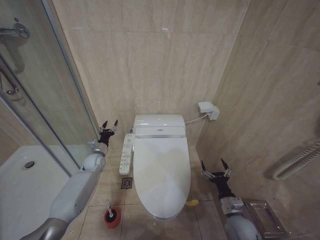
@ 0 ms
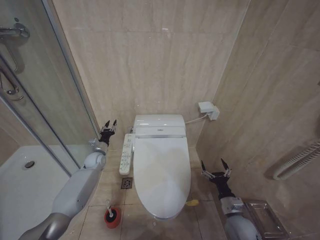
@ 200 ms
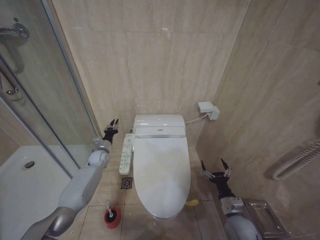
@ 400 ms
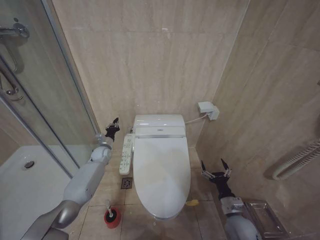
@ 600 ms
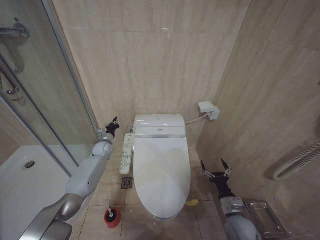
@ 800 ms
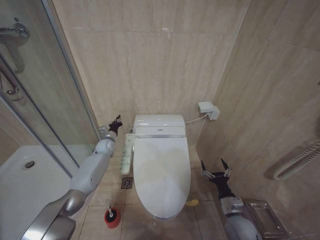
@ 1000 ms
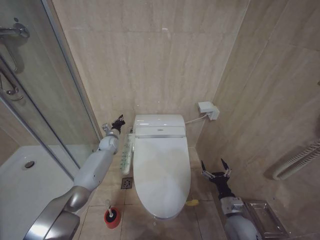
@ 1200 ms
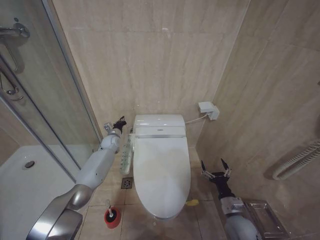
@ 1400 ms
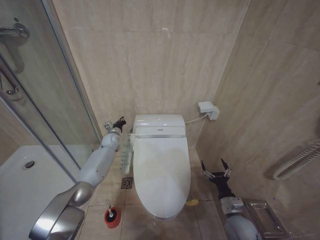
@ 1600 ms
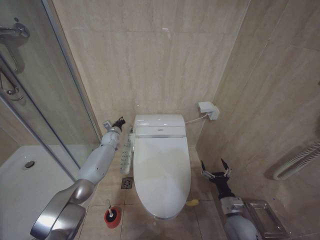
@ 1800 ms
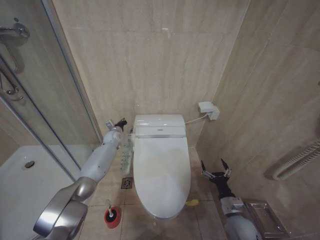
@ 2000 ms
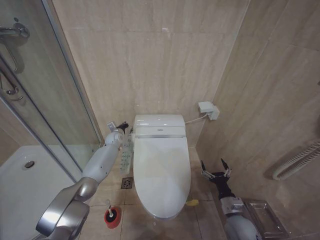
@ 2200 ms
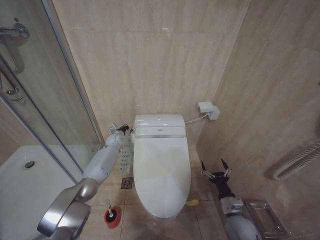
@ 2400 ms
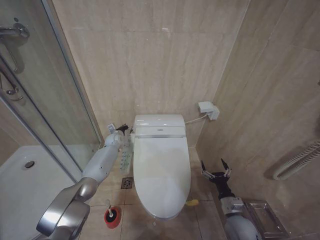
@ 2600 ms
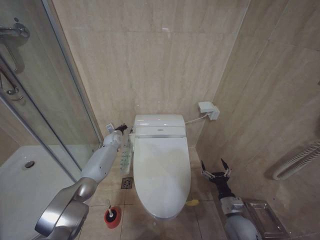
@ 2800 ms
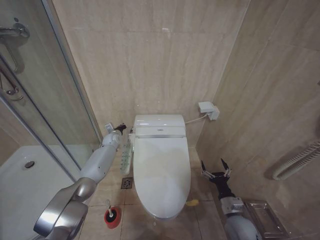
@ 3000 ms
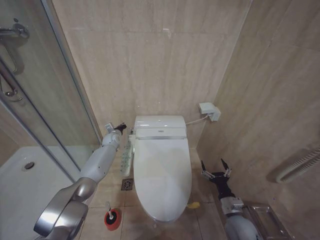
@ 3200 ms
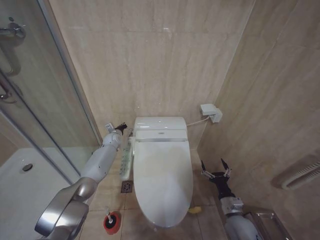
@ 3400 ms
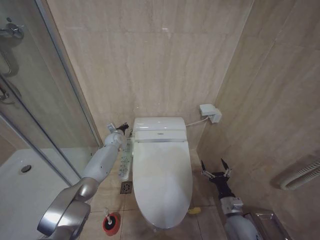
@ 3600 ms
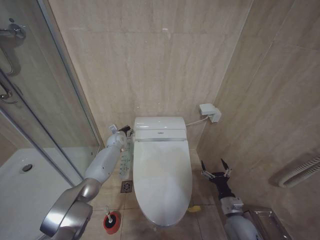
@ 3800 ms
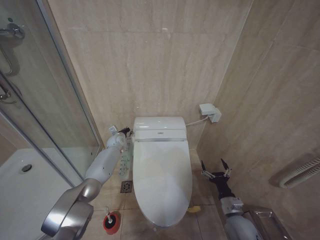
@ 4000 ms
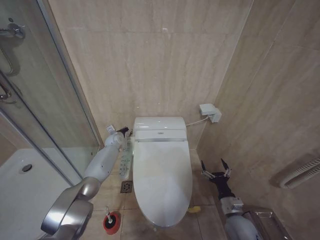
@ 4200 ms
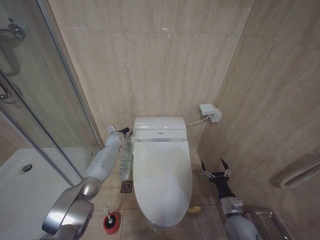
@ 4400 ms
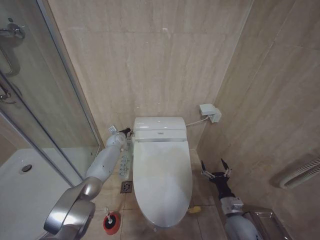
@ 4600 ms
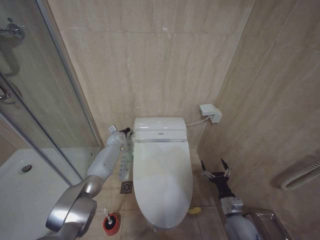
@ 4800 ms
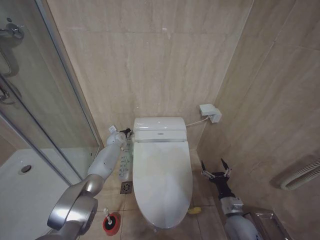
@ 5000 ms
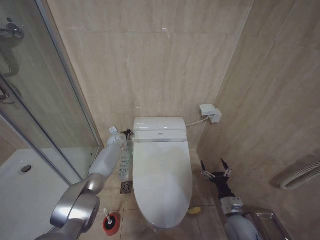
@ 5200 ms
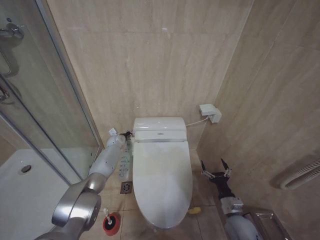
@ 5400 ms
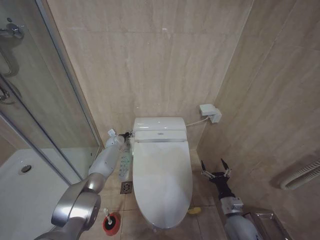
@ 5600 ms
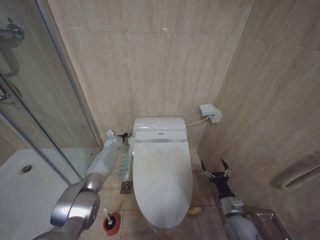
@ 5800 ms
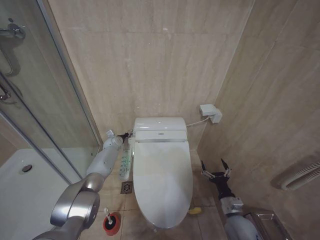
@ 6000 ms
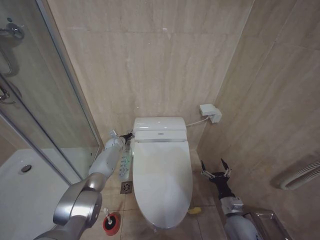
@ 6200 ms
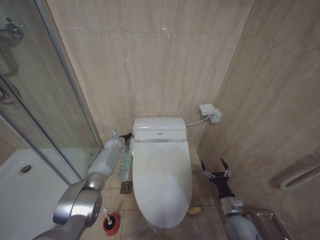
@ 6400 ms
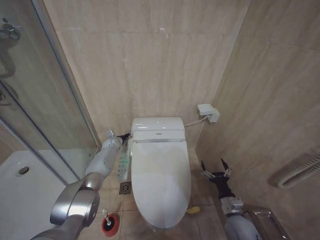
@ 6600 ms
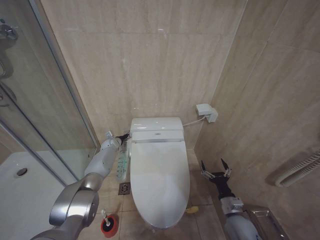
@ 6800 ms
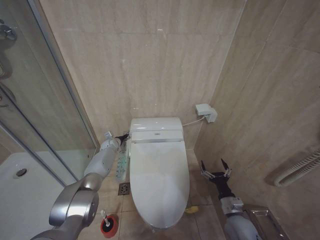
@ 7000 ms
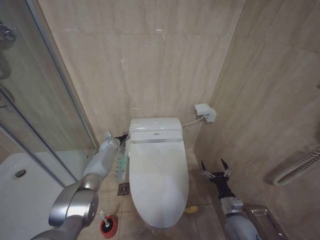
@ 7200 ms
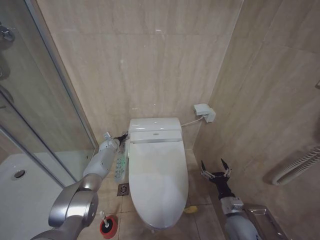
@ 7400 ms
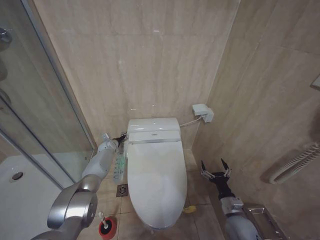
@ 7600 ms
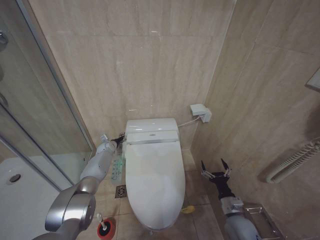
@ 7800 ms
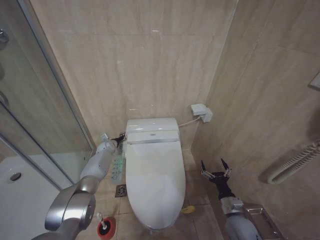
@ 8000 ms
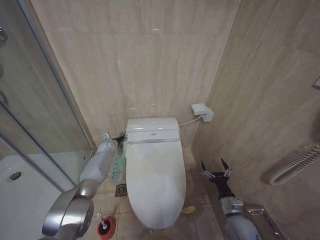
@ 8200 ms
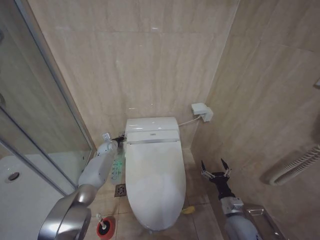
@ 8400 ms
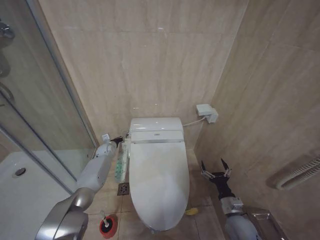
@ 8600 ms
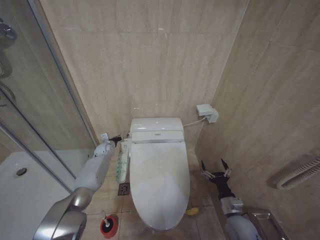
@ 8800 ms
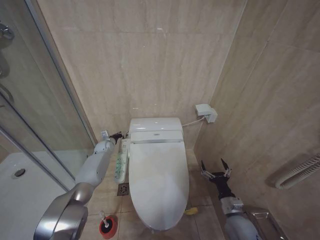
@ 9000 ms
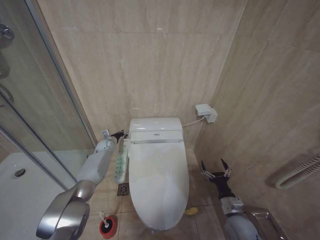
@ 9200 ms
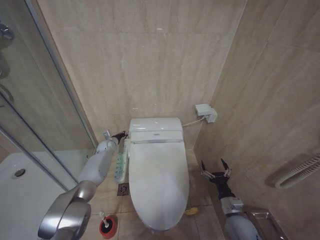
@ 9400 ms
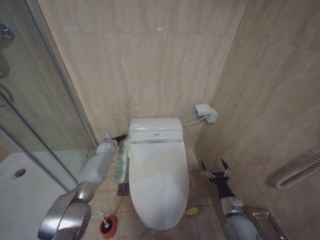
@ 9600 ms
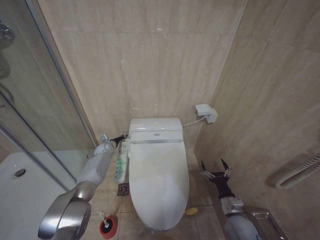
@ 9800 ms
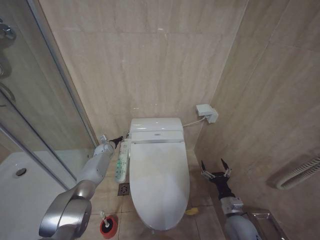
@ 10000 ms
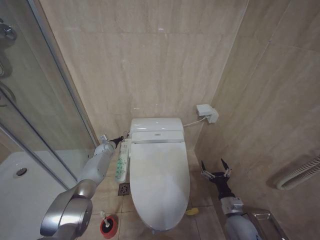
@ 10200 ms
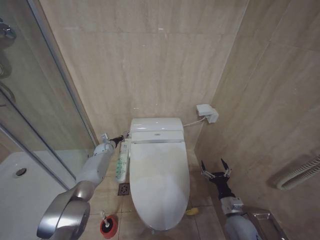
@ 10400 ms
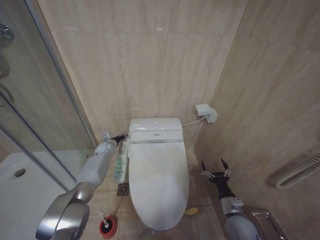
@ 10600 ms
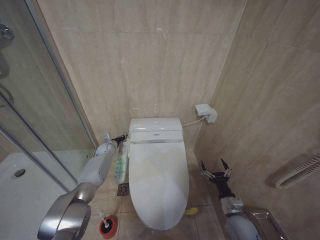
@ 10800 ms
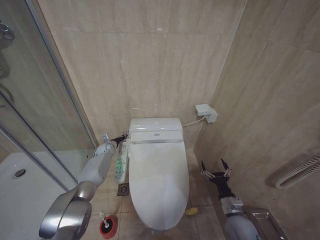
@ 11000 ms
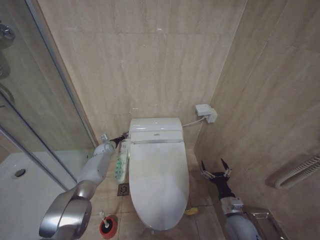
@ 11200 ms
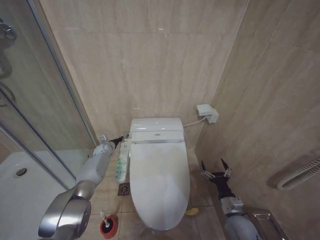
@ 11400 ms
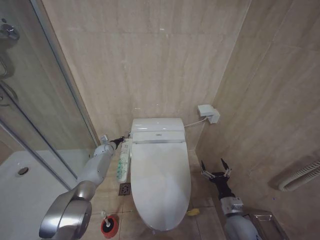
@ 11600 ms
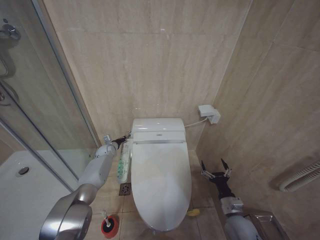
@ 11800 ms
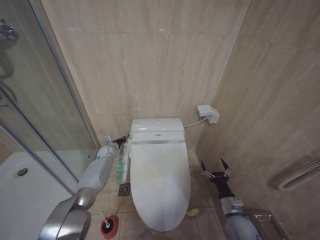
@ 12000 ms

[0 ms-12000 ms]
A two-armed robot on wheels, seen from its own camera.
Task of the whole recording: Open the toilet lid, clean the toilet bowl with a toilet brush, close the toilet lid, and flush.
0 ms to 1600 ms: The left gripper is displaced forward, to the right and upward by approximately 15 cm, and closes its fingers.
1600 ms to 4400 ms: There are only small adjustments of the grippers.
4400 ms to 6000 ms: The grippers stay close to where they were, moving slightly.
6000 ms to 12000 ms: The grippers move only a little.

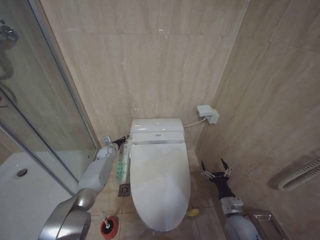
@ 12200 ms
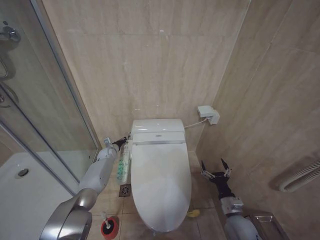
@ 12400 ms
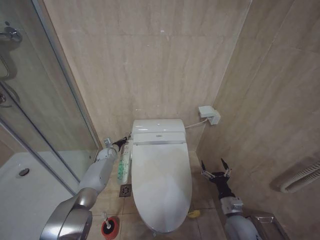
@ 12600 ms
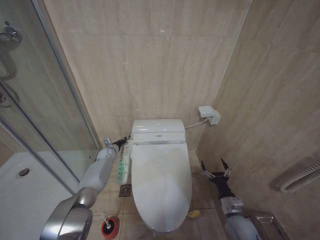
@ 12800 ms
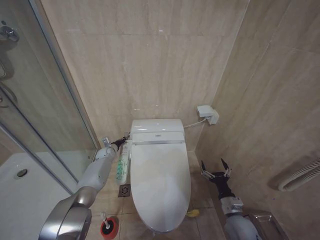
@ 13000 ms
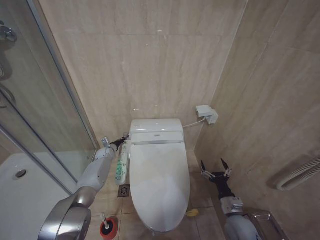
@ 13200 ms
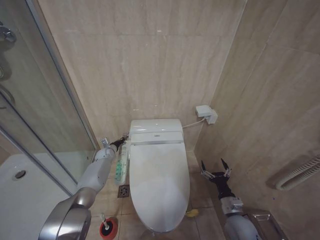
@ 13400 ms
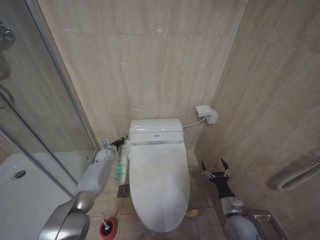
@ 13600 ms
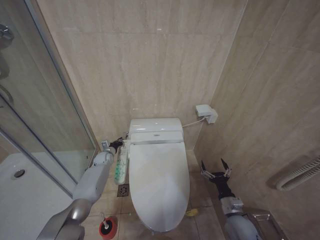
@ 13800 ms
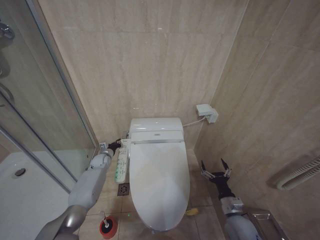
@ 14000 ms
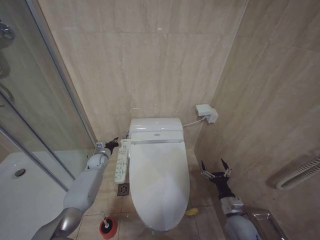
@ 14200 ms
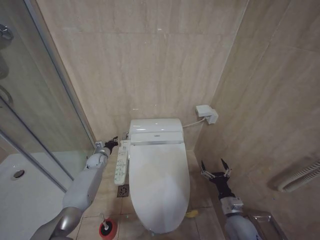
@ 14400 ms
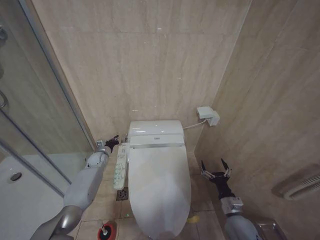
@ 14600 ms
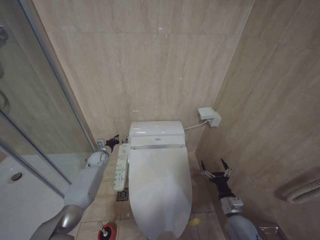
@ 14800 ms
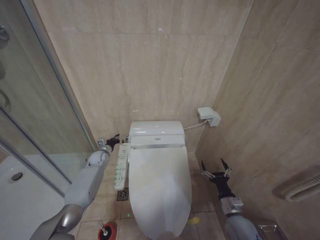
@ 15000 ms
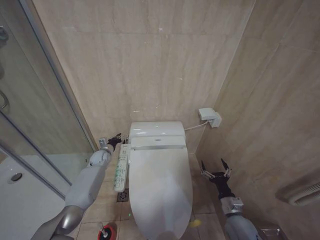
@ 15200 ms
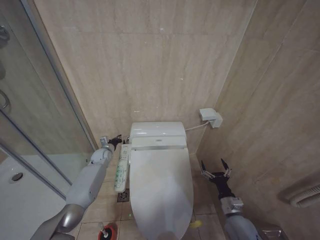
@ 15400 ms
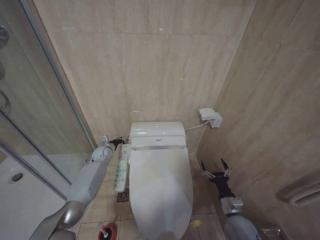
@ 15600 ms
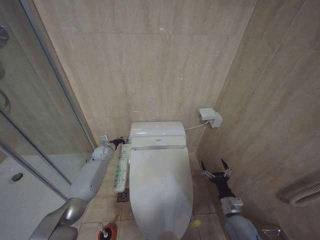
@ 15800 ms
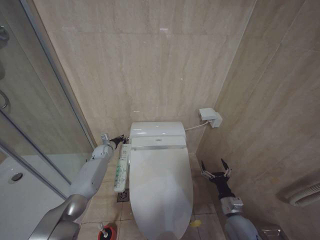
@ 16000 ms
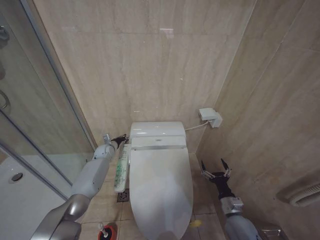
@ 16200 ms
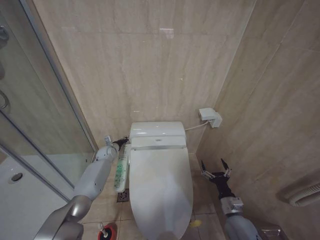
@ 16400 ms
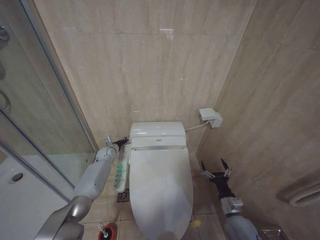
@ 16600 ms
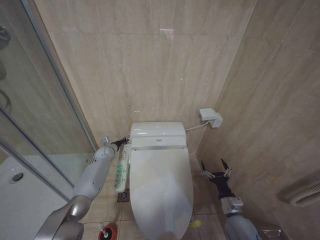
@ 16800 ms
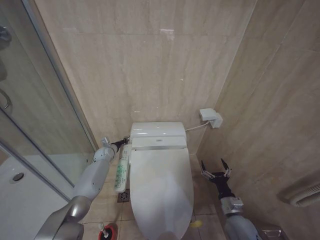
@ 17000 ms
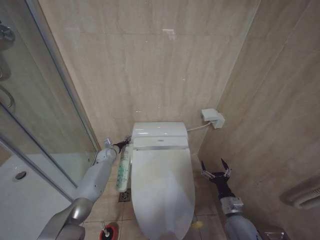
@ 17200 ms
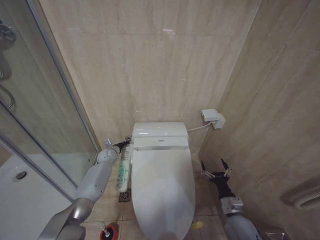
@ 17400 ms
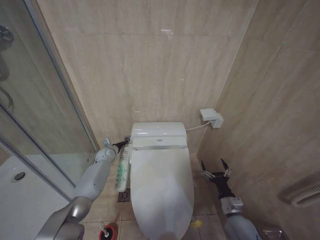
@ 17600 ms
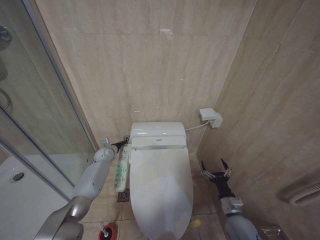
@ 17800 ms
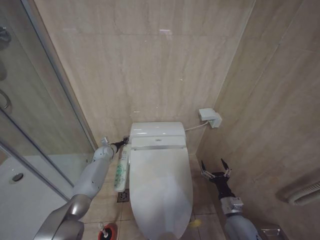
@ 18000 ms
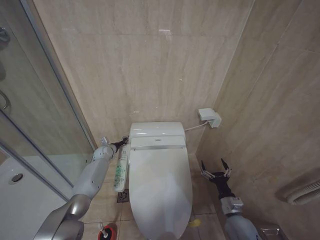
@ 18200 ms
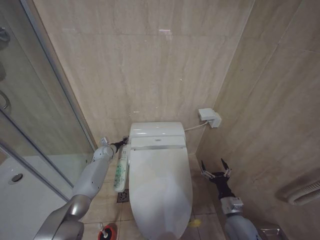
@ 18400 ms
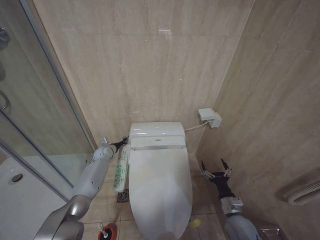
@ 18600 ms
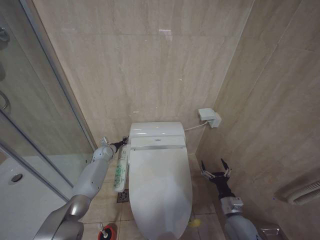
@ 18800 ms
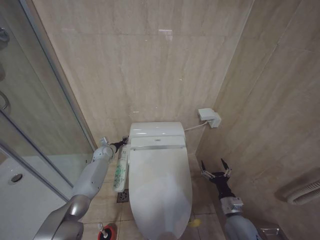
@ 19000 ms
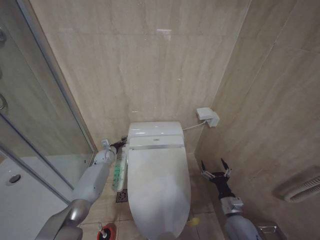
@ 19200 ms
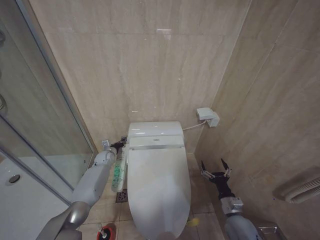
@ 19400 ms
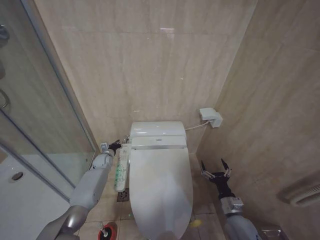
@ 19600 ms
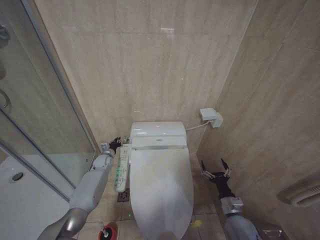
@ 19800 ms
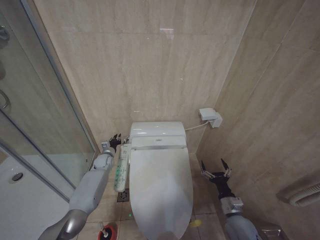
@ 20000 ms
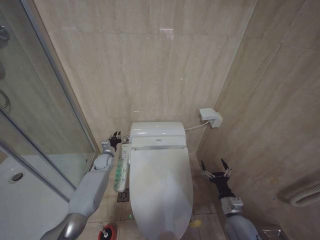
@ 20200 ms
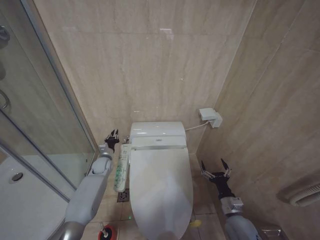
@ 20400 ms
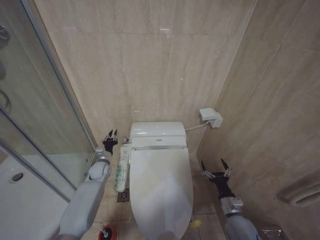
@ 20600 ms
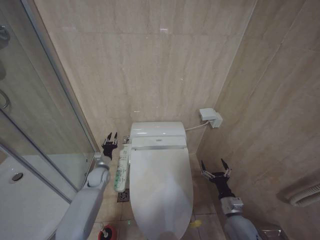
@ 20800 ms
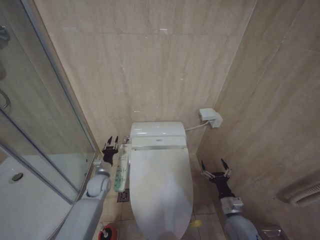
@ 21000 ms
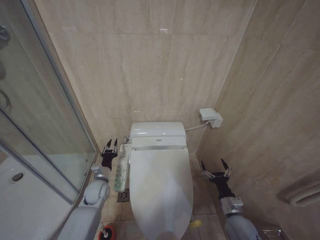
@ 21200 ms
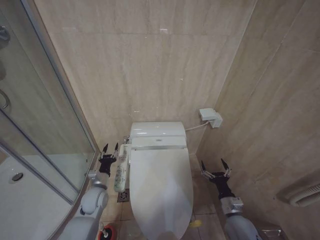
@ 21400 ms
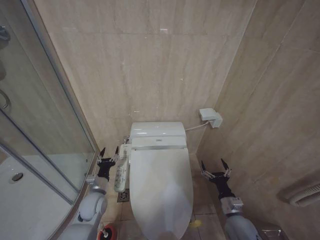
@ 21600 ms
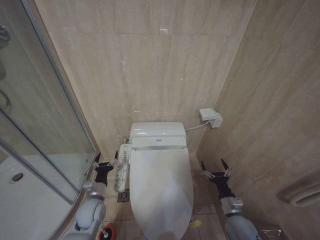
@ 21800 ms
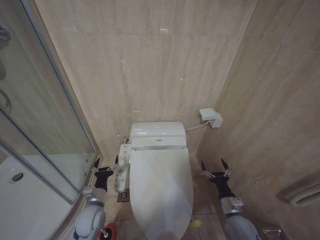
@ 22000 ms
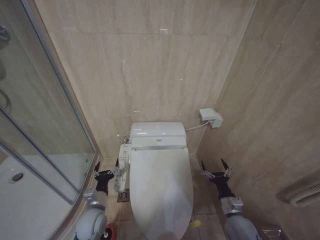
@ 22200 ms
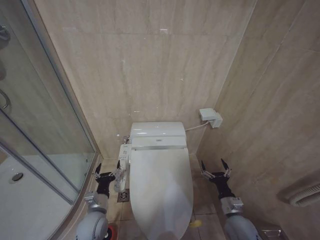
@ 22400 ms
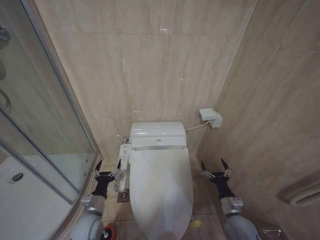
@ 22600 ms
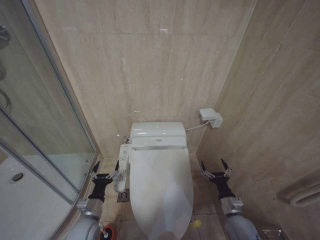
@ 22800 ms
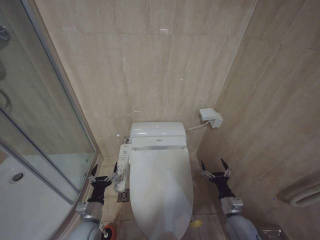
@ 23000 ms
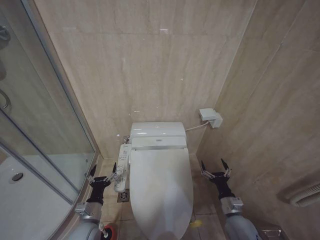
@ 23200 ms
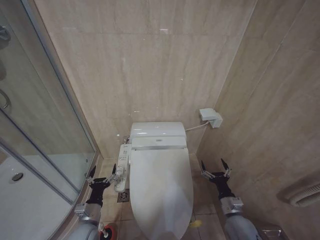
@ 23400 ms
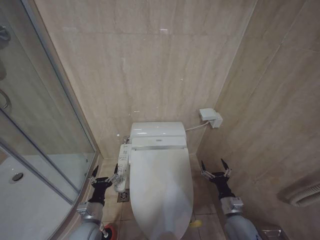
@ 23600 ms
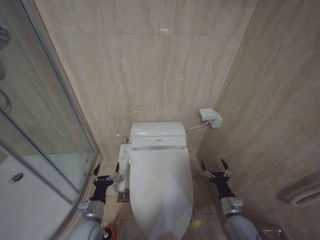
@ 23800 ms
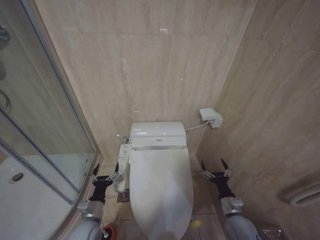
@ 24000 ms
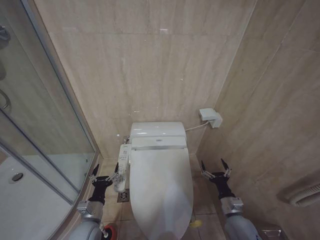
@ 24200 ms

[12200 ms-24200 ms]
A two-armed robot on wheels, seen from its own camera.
Task of the whole recording: Open the toilet lid, clean the toilet bowl with a toilet brush, close the toilet lid, and flush.
12200 ms to 18200 ms: The grippers stay close to where they were, moving slightly.
19800 ms to 21200 ms: The left gripper moves backward, some 15 cm.
21200 ms to 22600 ms: The left gripper travels backward by some 15 cm, and opens up.
22600 ms to 24200 ms: The grippers stay close to where they were, moving slightly.
